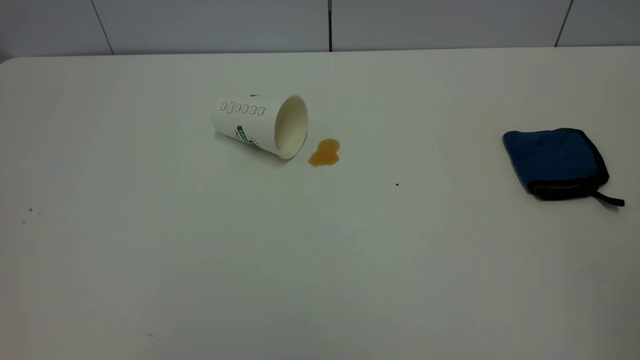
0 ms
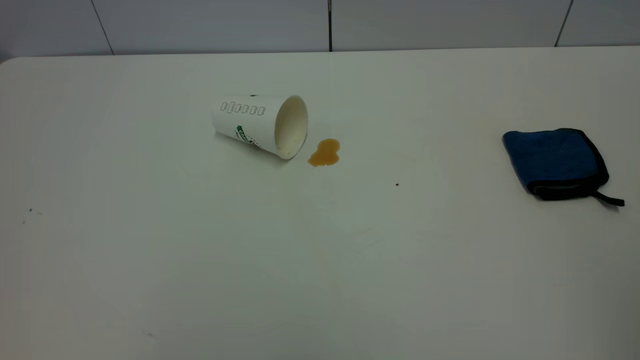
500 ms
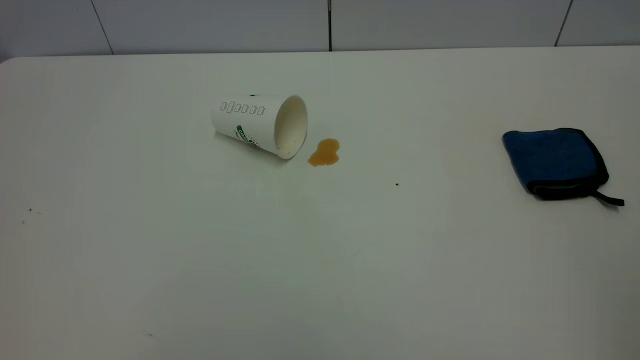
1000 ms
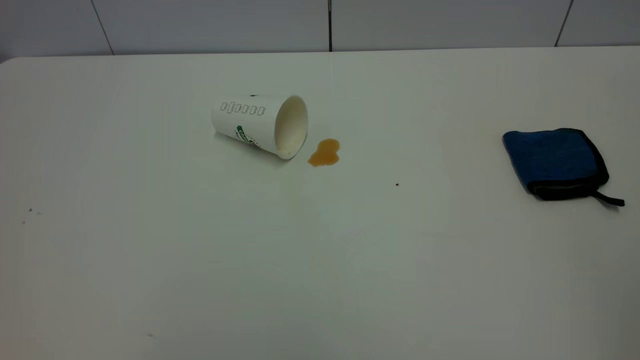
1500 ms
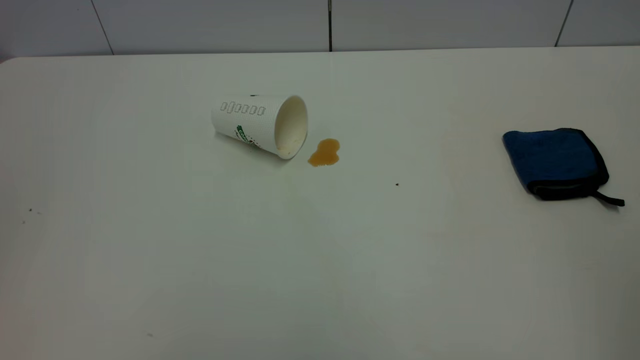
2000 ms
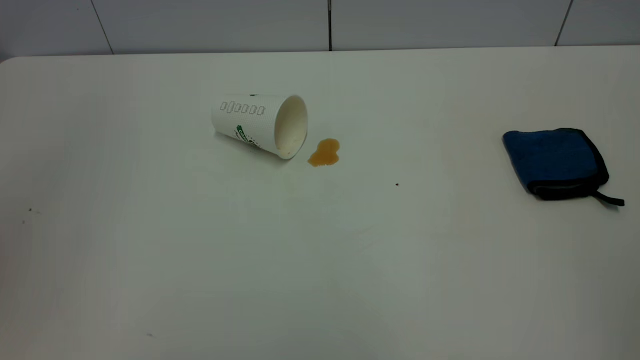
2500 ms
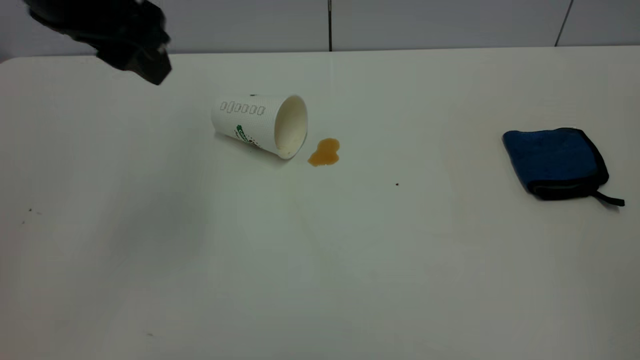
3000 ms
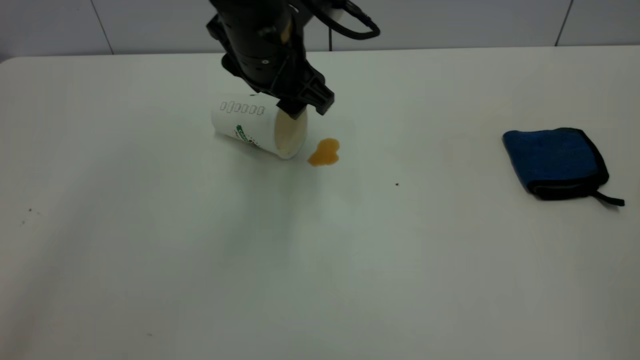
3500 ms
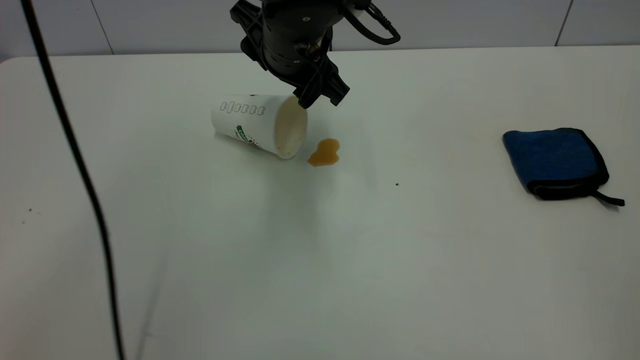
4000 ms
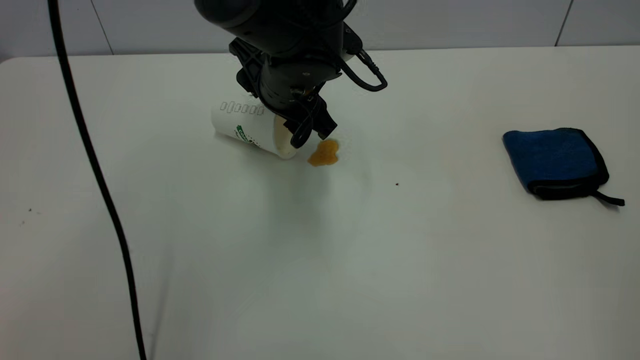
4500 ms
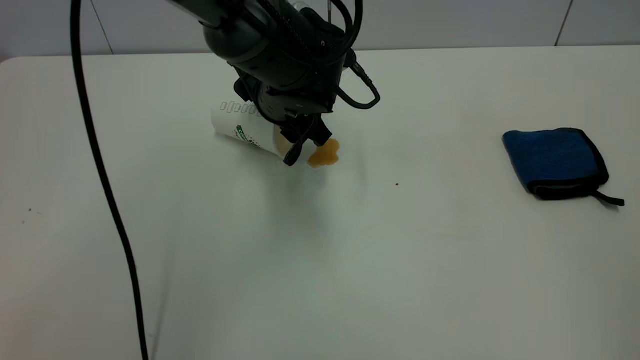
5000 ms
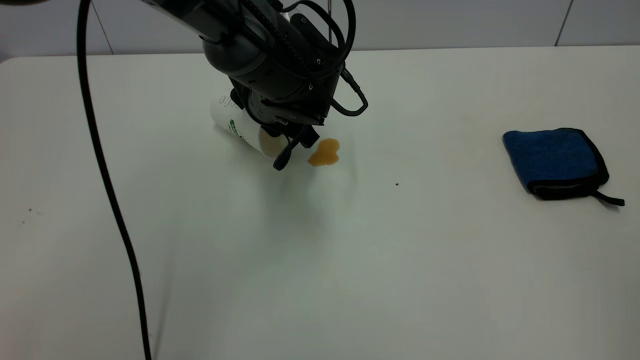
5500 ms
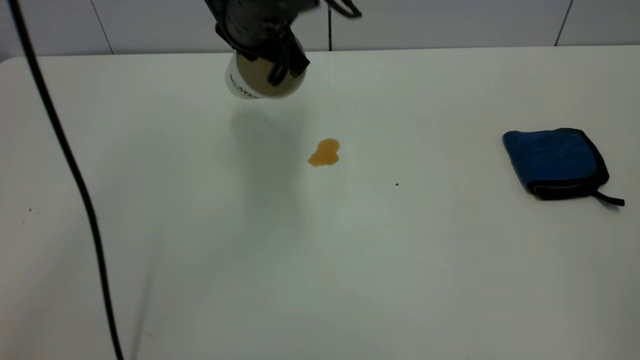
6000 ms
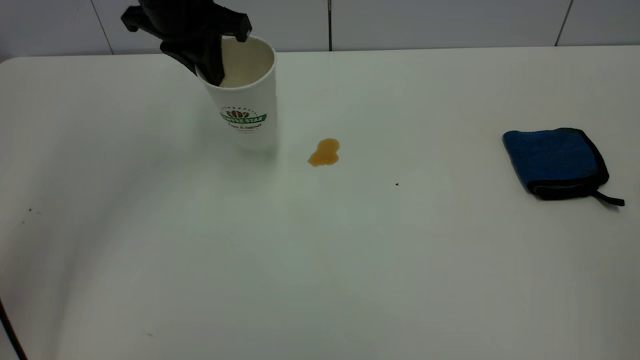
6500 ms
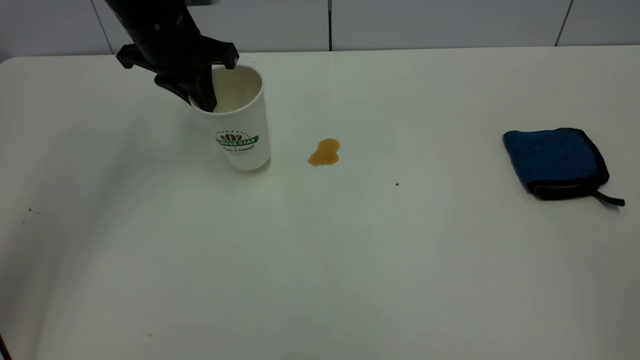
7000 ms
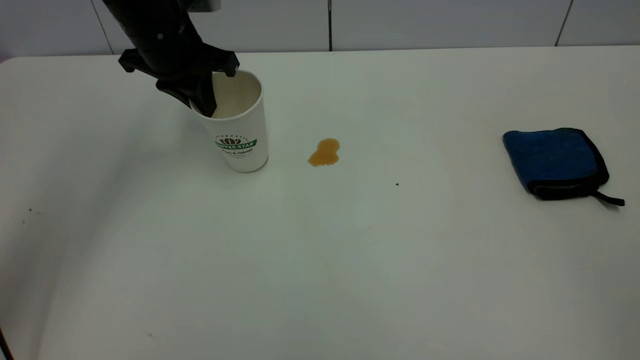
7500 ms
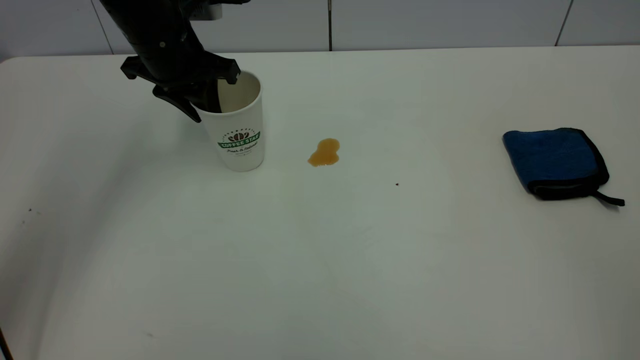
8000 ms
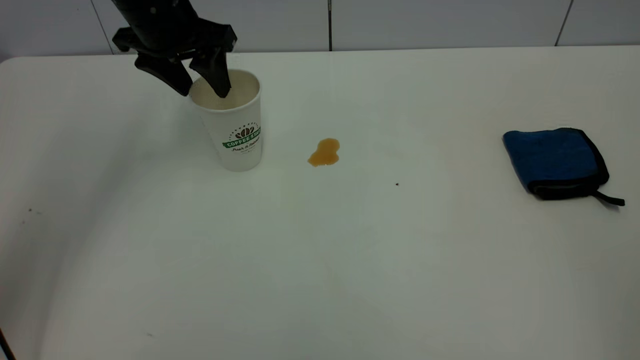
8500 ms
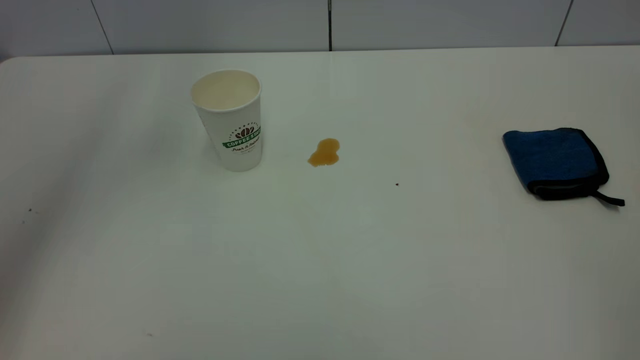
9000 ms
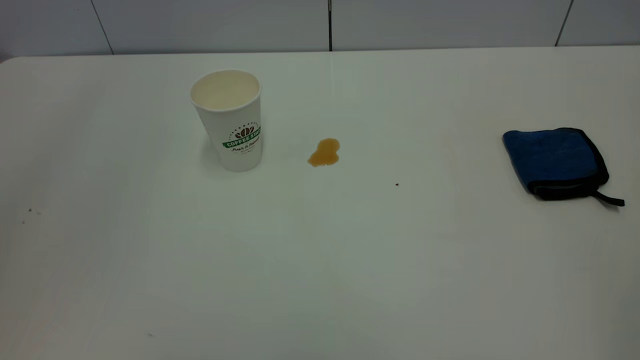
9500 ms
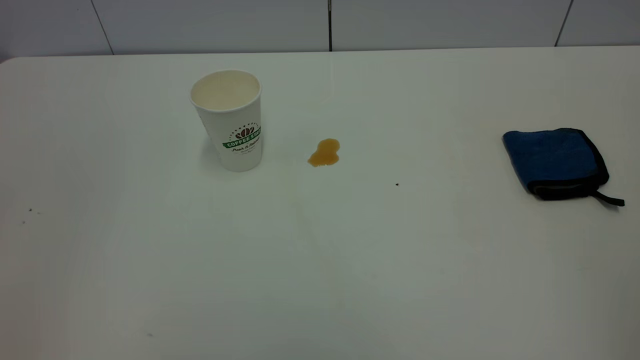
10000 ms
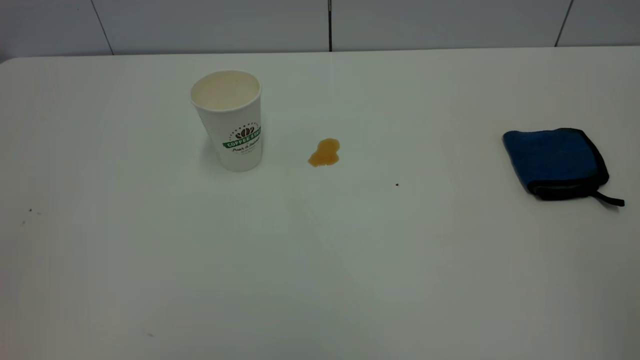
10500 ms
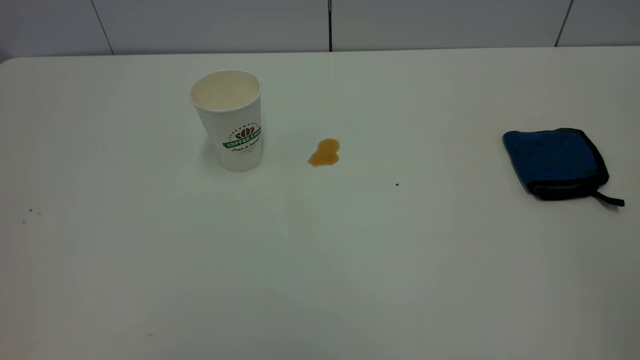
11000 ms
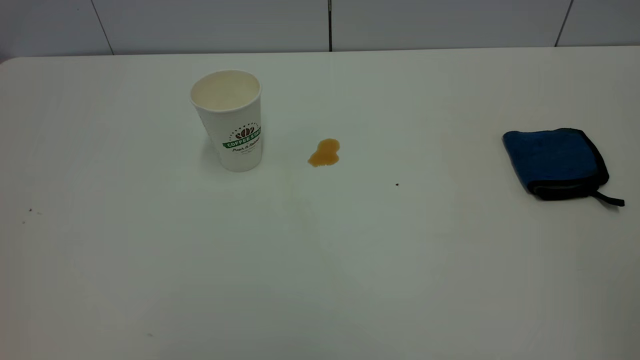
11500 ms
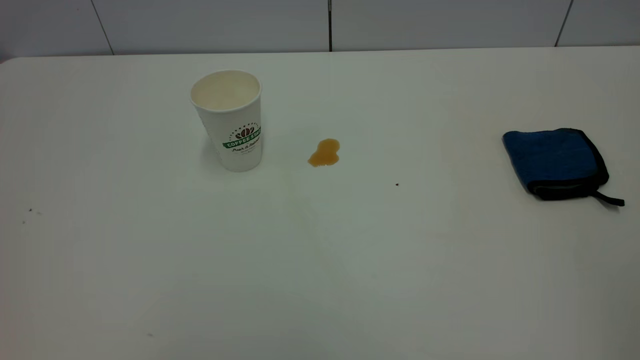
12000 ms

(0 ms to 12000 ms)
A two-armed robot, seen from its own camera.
Task of the whole recording: the left gripper pick up the fallen cup and place it upright, the right gripper grasp the blue rag and wipe the tea stain on the table, the right gripper put the blue rag back in its original position.
Step, 0 ms - 8500 ms: Stand the paper cup upright.
2000 ms - 4000 ms: The left gripper is displaced forward, to the right and downward by about 50 cm.
4000 ms - 6000 ms: The left gripper goes downward and returns, roughly 10 cm each way, and closes.
6000 ms - 8000 ms: The left gripper heads to the left, covering about 10 cm, and opens up.
8000 ms - 10000 ms: The left gripper is displaced backward and upward by about 40 cm, and opens its fingers.

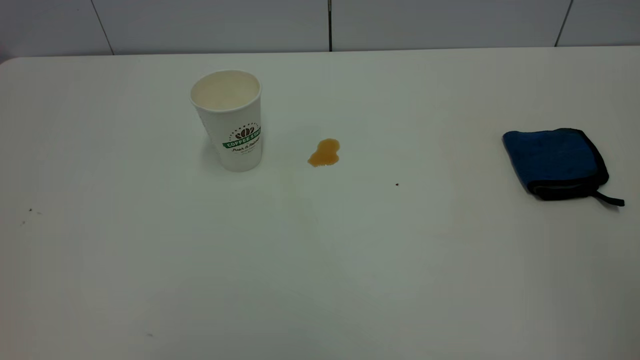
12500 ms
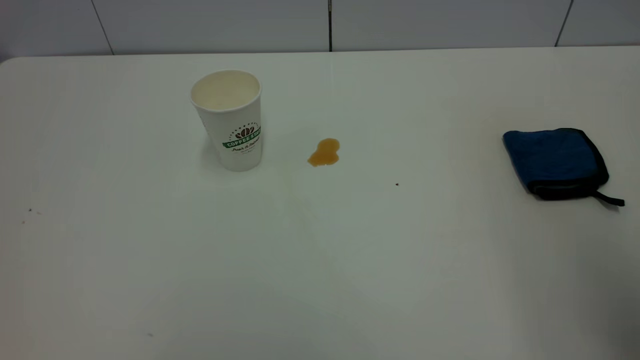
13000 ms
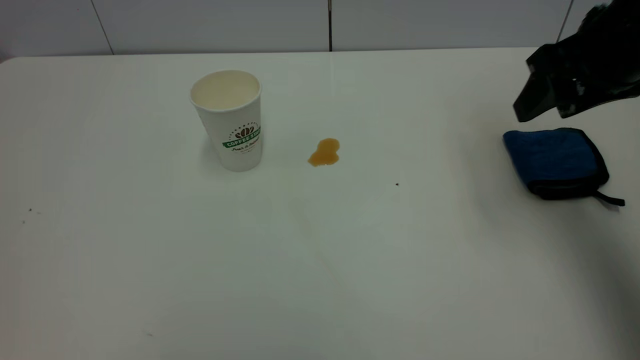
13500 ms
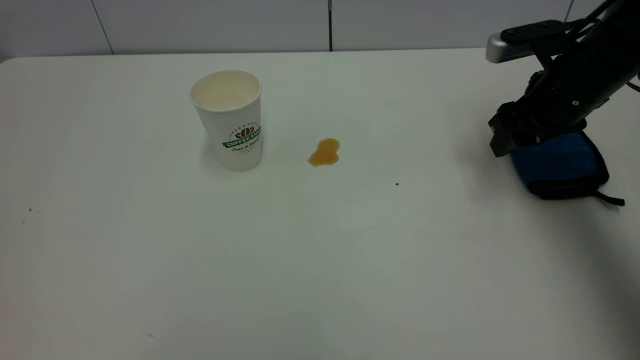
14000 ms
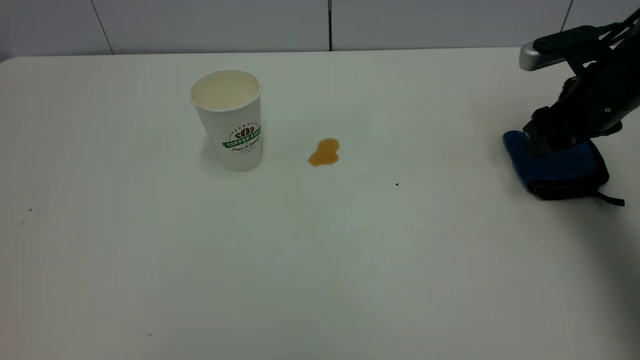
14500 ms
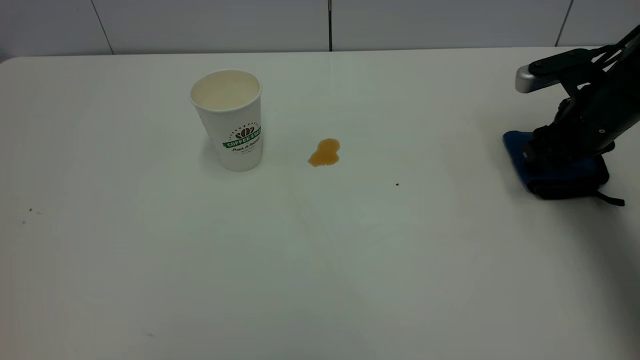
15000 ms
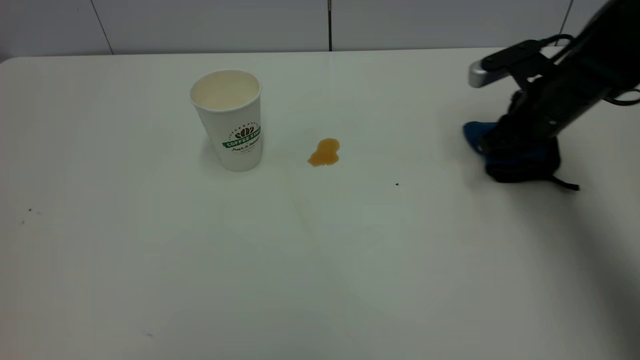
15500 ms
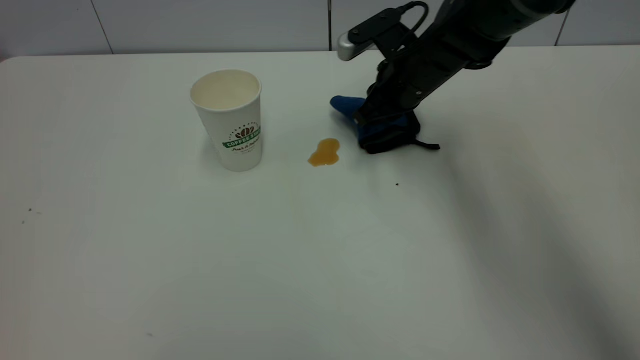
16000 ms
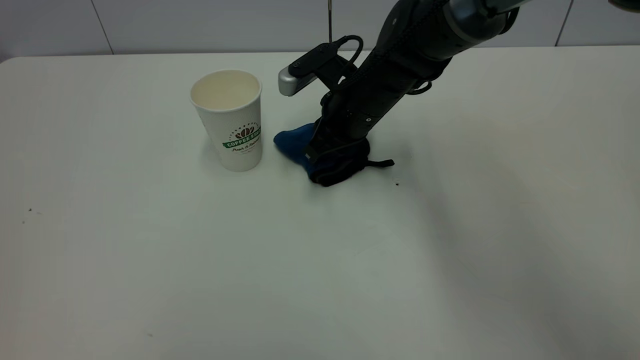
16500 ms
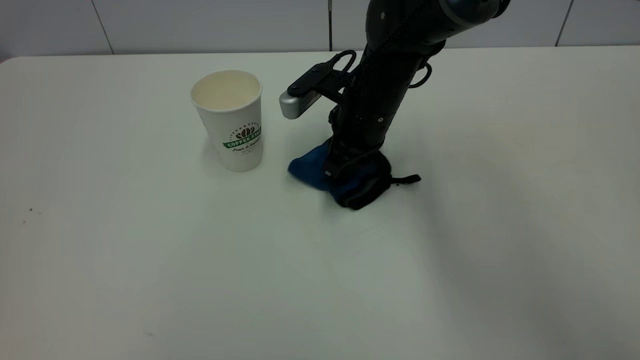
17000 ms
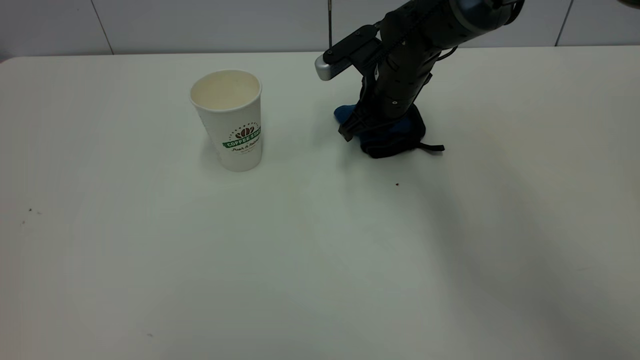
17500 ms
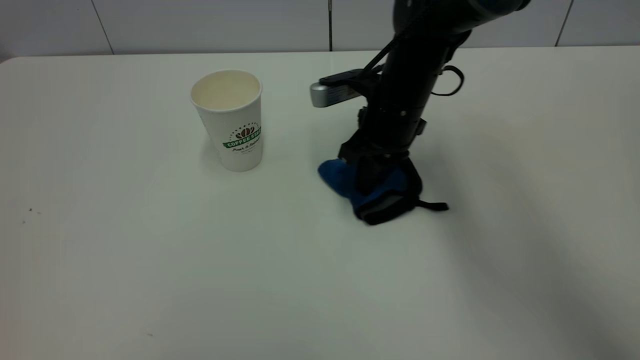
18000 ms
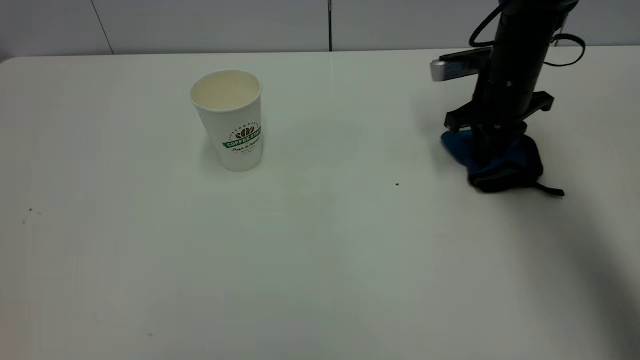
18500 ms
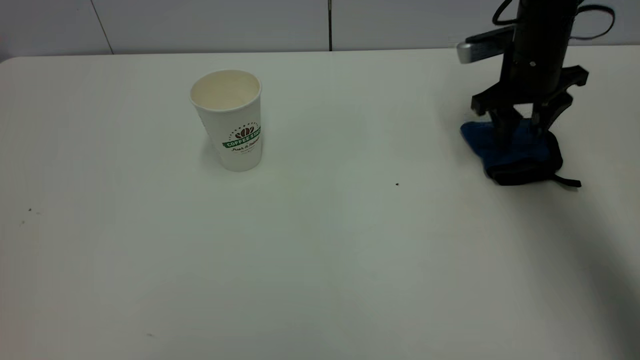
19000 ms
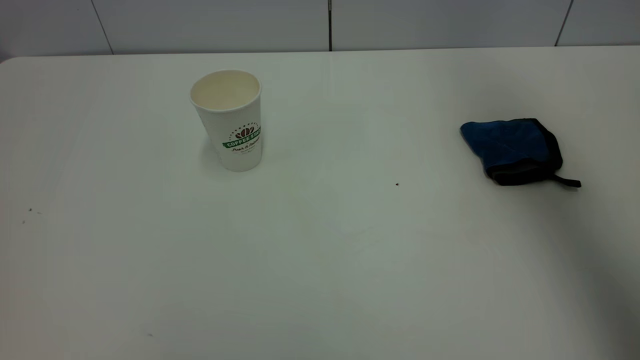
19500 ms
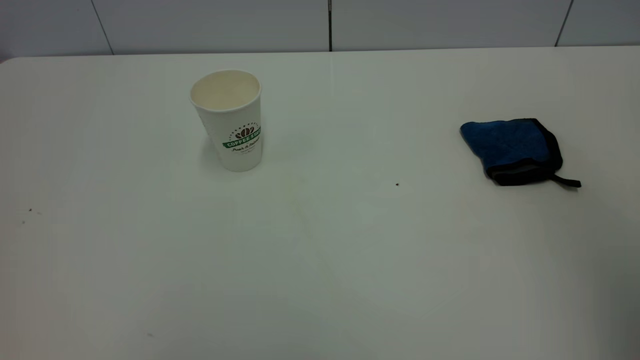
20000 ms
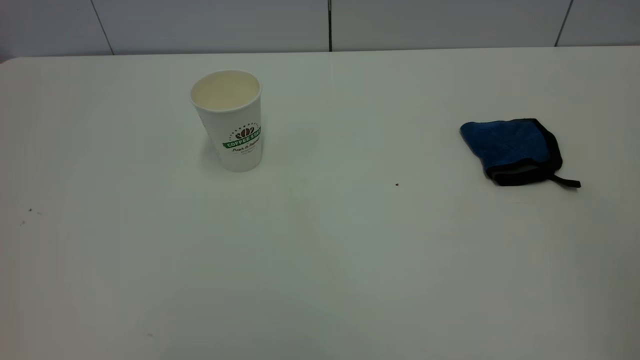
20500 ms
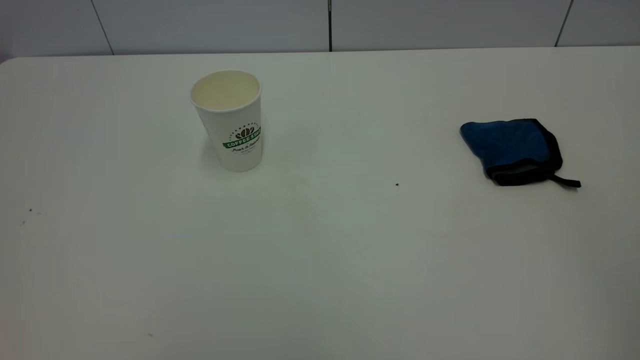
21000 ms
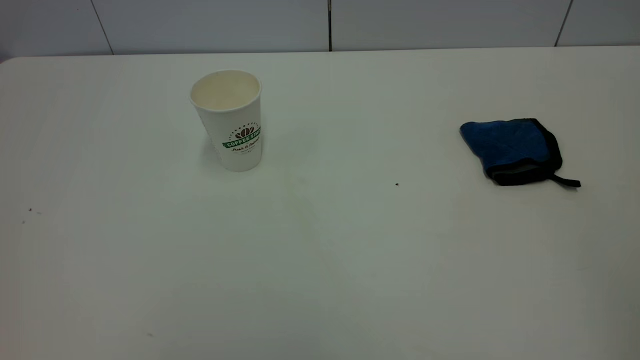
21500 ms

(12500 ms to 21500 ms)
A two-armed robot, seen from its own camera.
Task of the whole recording: the left gripper pick up the fallen cup and place it upright, the right gripper grasp the blue rag and wipe the tea stain on the table, the right gripper put the blue rag back in its original position.
Step, 12500 ms - 19000 ms: Wipe the stains off the table with a rag.
12500 ms - 14500 ms: The right gripper travels forward and downward by some 50 cm.
14500 ms - 17000 ms: The right gripper goes approximately 25 cm to the left, and closes up.
17000 ms - 19500 ms: The right gripper travels upward and to the right by roughly 35 cm, and opens up.
19500 ms - 21500 ms: The right gripper heads backward, covering about 40 cm.
